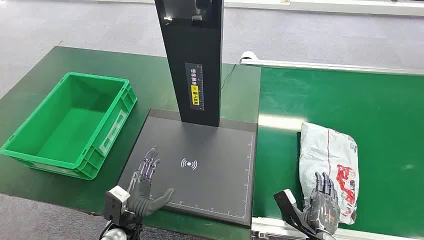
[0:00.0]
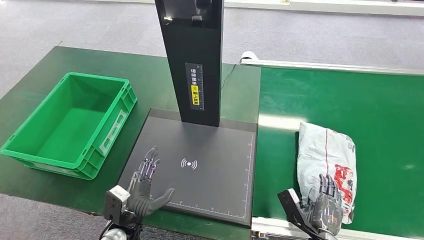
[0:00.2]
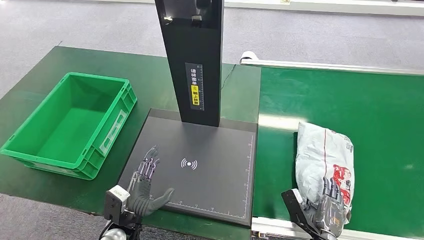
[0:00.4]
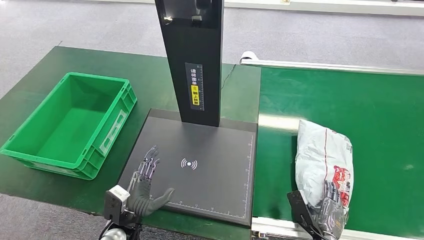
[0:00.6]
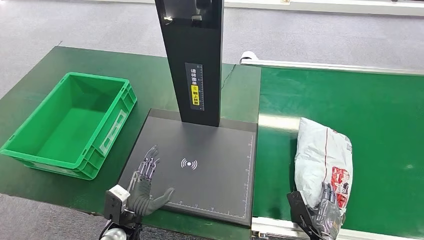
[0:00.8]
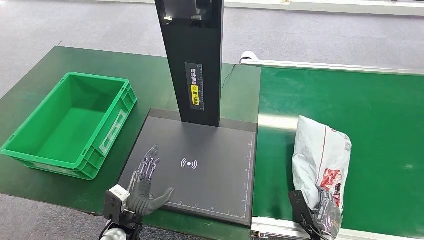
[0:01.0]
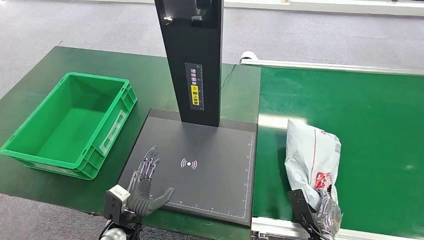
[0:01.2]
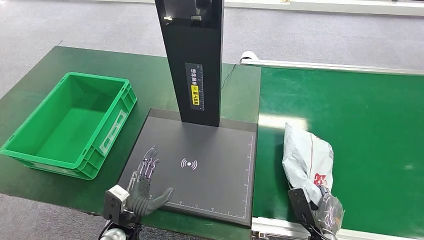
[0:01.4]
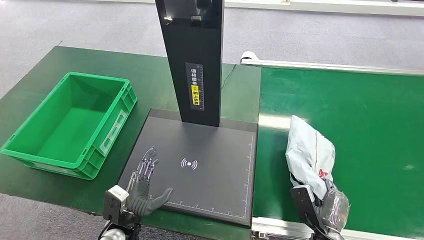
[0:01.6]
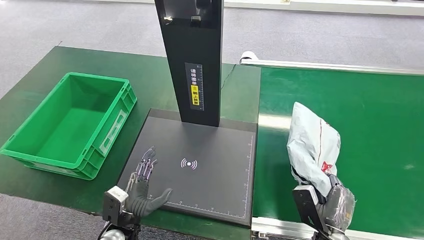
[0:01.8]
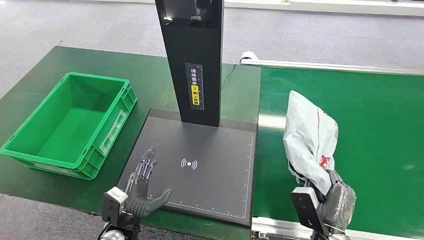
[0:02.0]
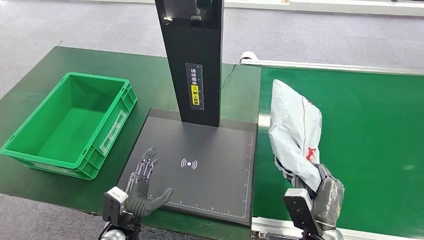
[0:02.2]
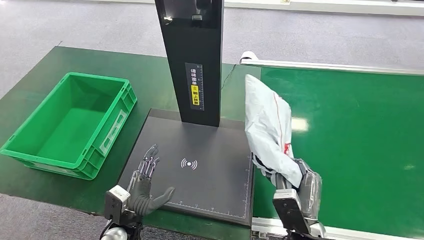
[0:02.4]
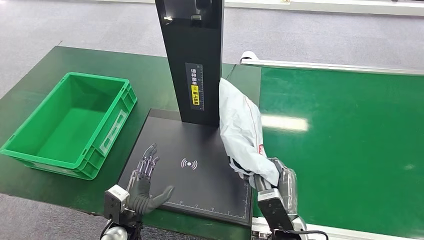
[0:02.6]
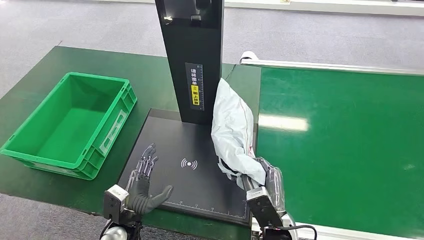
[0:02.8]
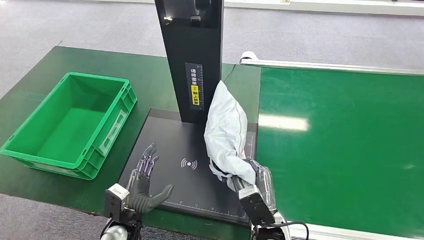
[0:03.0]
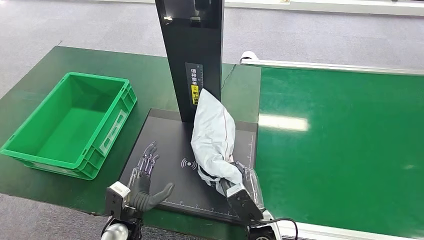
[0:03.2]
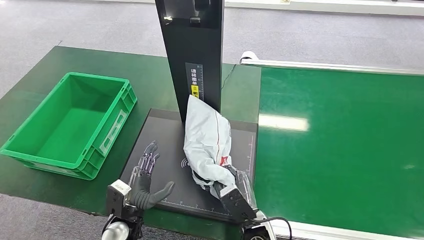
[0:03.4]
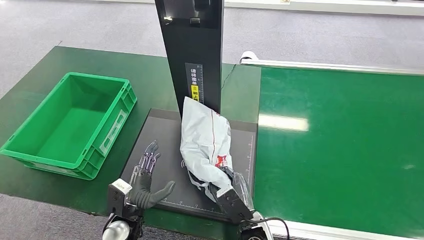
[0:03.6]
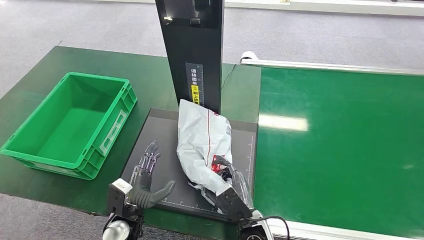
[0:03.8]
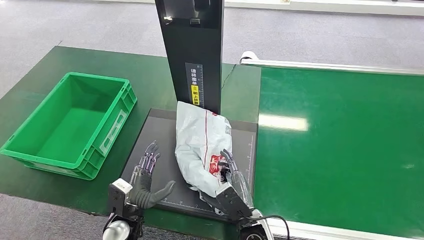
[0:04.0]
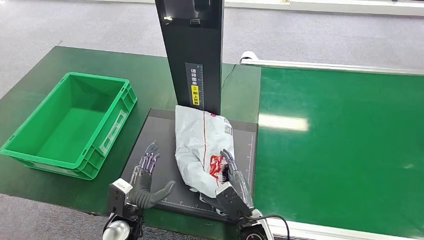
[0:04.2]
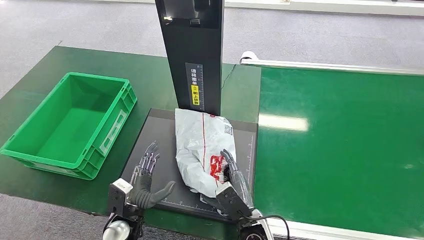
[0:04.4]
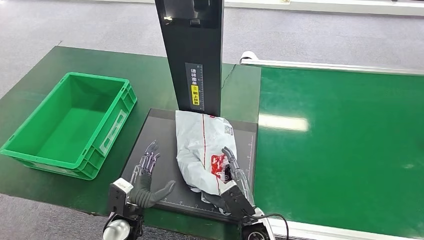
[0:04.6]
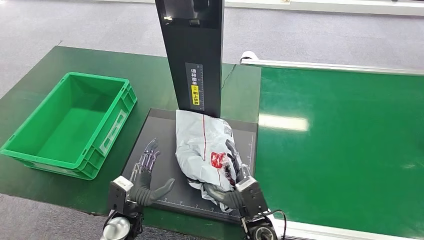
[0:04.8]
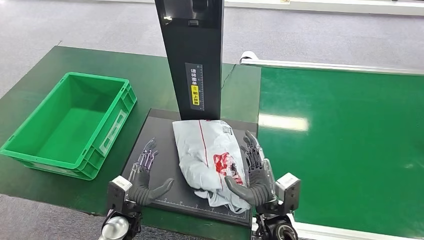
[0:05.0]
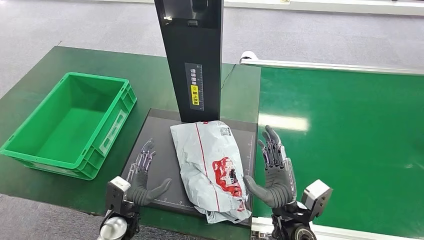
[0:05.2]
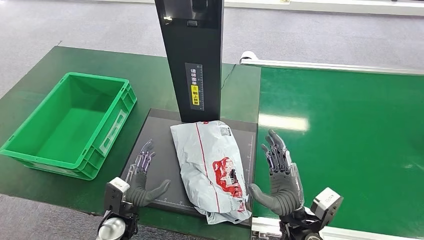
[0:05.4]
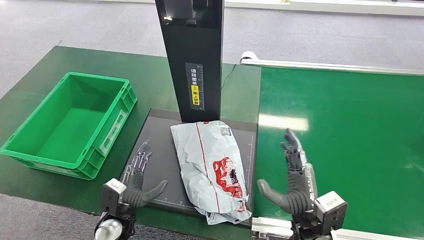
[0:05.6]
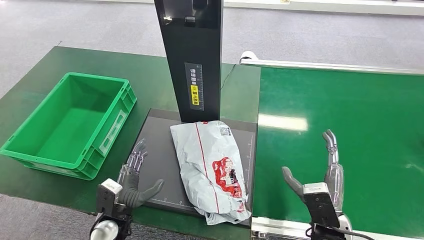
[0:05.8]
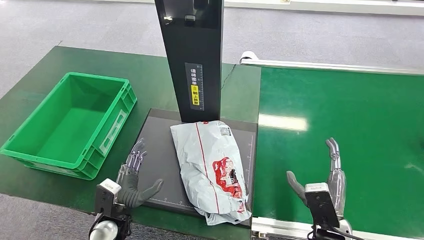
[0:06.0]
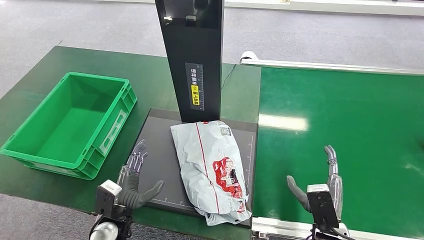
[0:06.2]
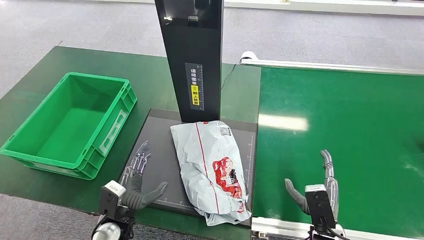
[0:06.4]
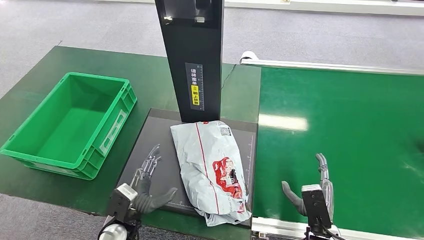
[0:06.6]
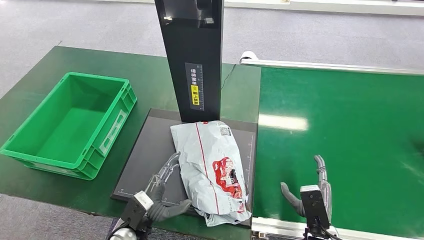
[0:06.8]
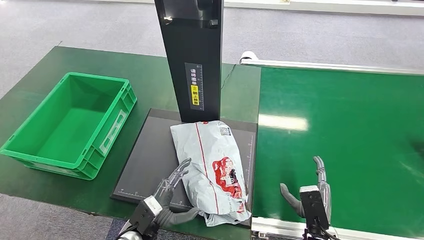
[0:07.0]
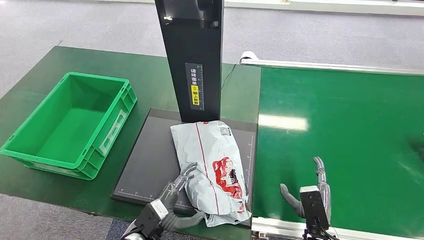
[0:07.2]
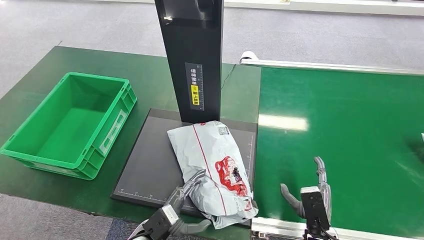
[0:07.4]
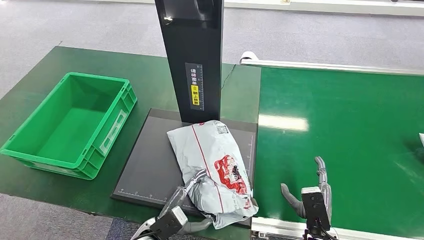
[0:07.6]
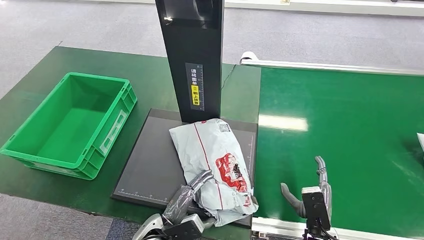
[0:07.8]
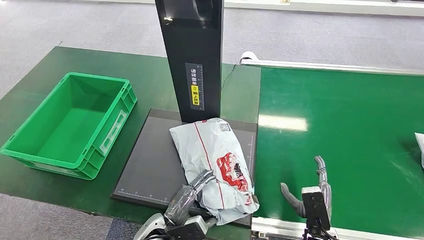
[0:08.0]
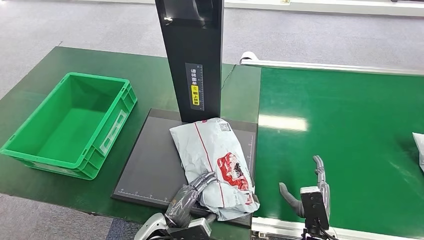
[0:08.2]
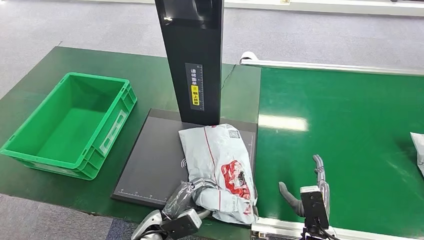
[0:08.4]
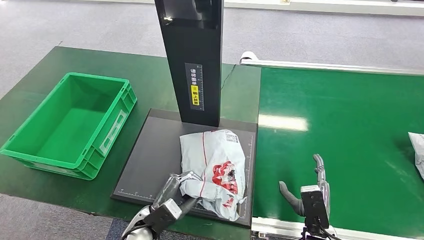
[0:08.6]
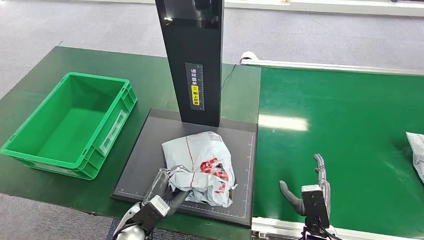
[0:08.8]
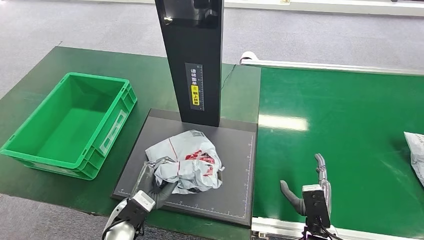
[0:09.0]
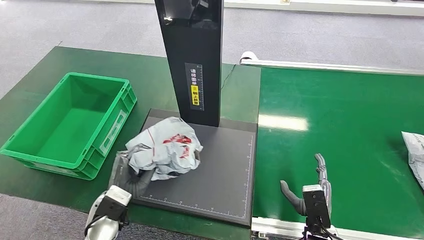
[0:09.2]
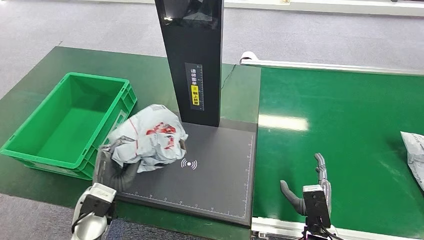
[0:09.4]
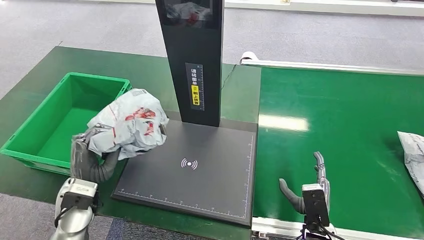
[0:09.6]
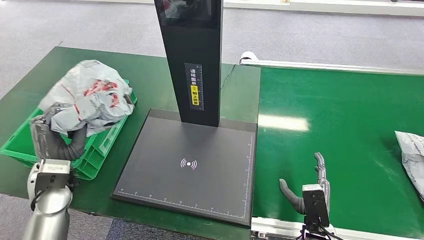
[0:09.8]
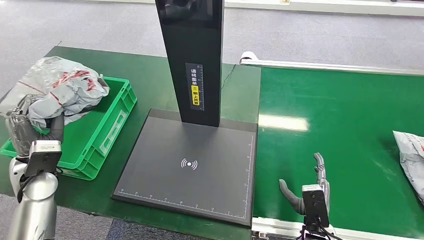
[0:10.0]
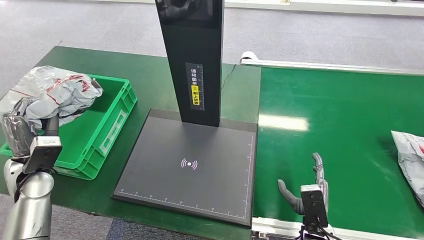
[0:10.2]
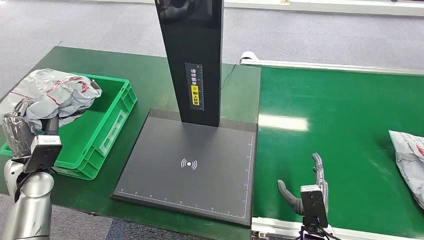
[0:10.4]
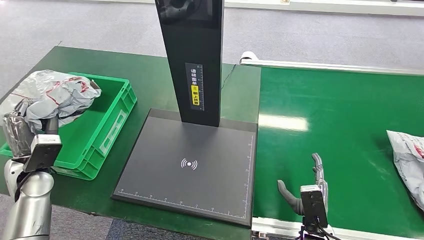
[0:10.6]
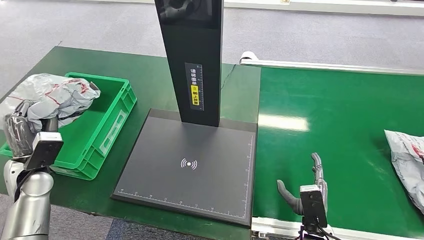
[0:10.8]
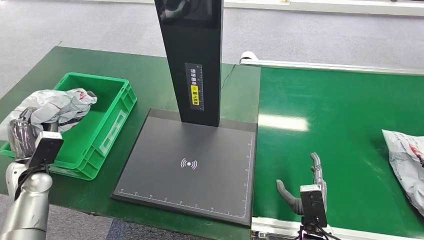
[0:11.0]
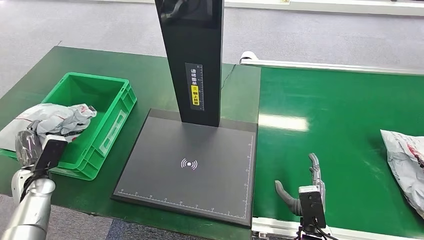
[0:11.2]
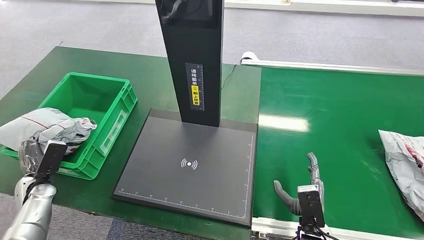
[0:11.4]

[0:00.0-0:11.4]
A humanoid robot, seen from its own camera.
Step, 0:00.0 to 0:02.0: Pick up the package from the conveyor belt.
Step, 0:02.2 to 0:05.8: Place the package onto the inbound machine.
Step, 0:06.0 to 0:09.2: Pick up the package from the inbound machine.
0:01.4 to 0:02.8: The right hand heads to the left and upward, covering approximately 15 cm.
0:02.8 to 0:04.2: The right hand ends up some 5 cm from where it was.
0:04.2 to 0:05.6: The right hand travels to the right and upward by approximately 15 cm.
0:05.6 to 0:07.2: The right hand travels downward by about 10 cm; the left hand is displaced to the right by about 5 cm.
0:08.6 to 0:10.0: The left hand travels to the left and upward by about 30 cm.
0:10.0 to 0:11.4: The left hand shifts some 15 cm downward and to the left.

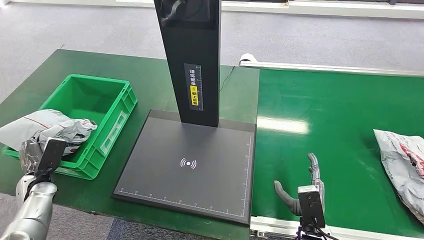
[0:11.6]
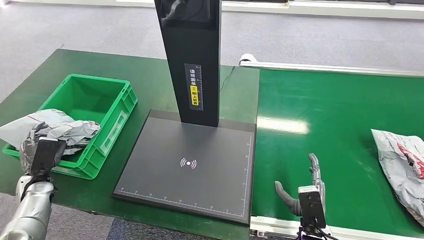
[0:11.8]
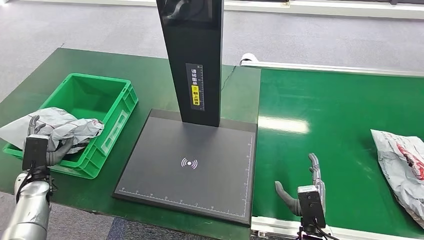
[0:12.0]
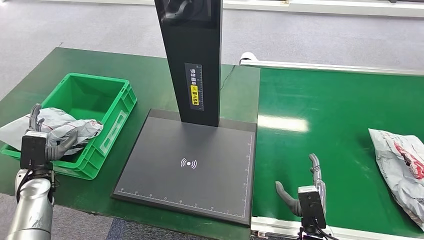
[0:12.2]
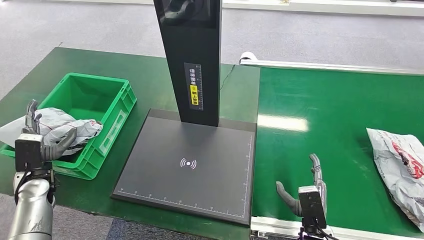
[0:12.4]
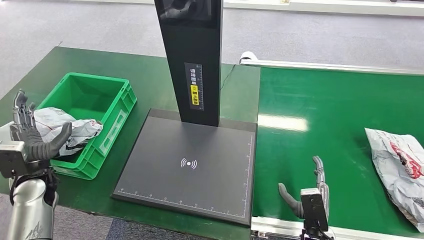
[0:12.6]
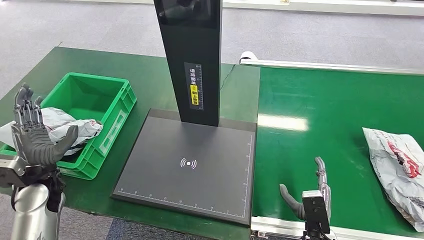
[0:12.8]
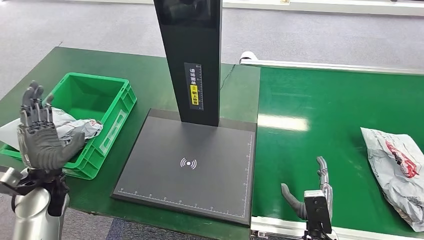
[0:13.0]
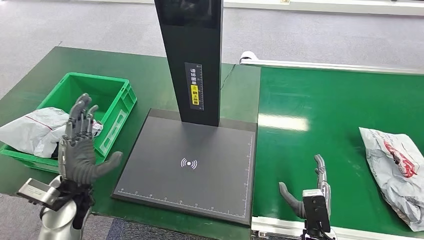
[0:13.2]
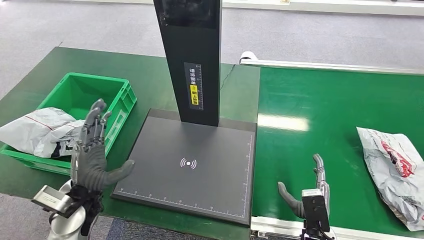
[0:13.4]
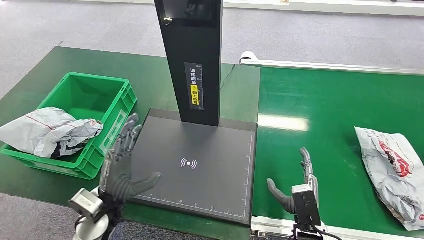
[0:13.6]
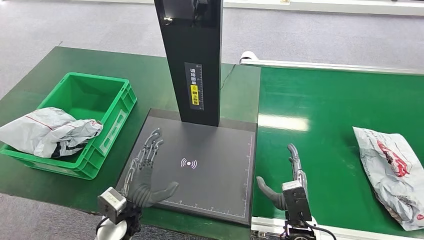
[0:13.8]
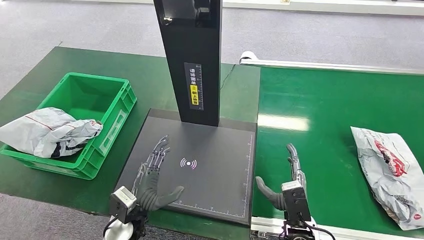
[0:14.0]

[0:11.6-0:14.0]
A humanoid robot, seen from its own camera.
Step, 0:11.6 to 0:14.0: Place the package into the parcel locker.
0:11.6 to 0:12.8: The left hand heads upward and to the right, covering about 15 cm.
0:12.8 to 0:14.0: The right hand changes place by approximately 5 cm. The left hand is displaced to the right and downward by about 20 cm.

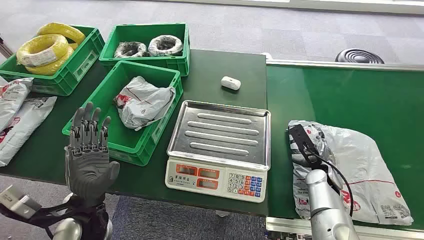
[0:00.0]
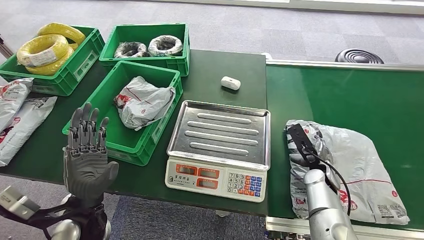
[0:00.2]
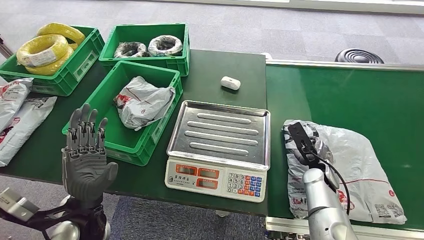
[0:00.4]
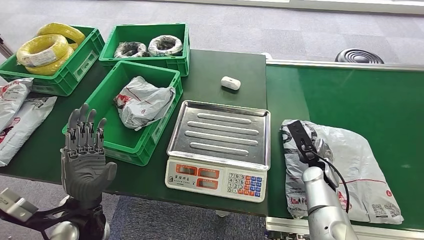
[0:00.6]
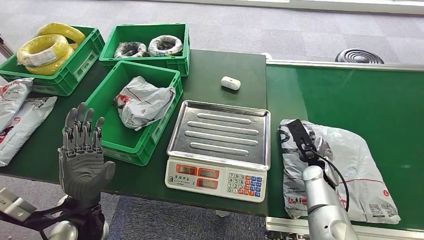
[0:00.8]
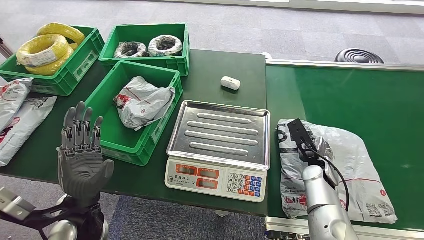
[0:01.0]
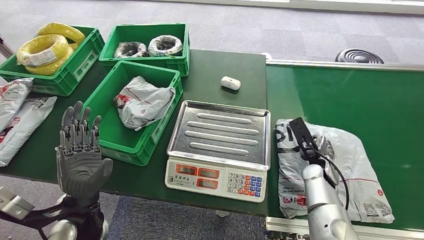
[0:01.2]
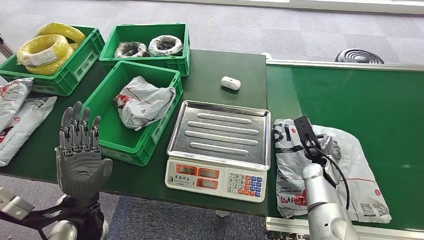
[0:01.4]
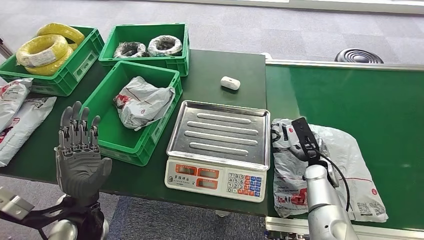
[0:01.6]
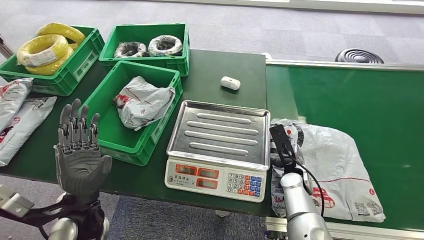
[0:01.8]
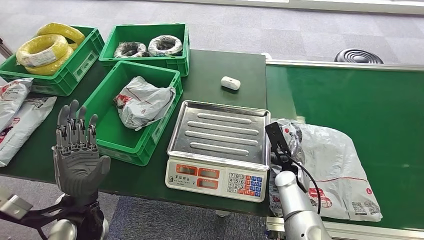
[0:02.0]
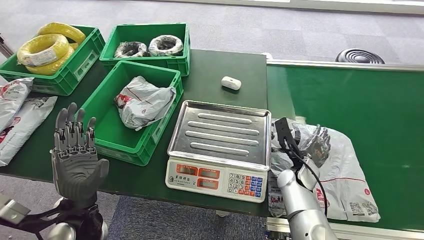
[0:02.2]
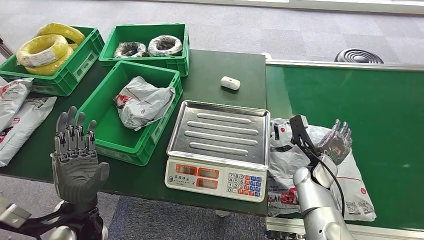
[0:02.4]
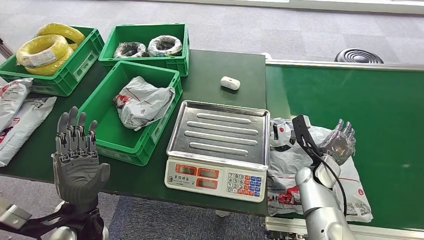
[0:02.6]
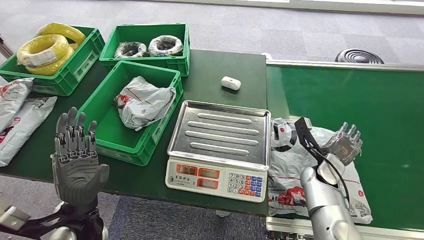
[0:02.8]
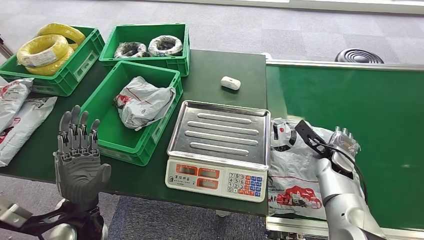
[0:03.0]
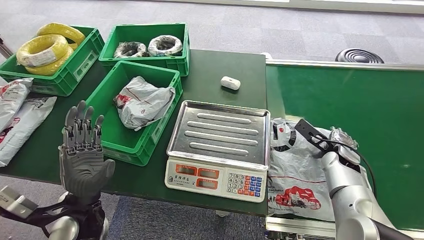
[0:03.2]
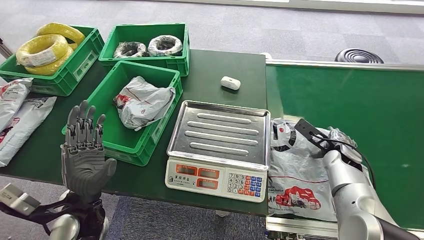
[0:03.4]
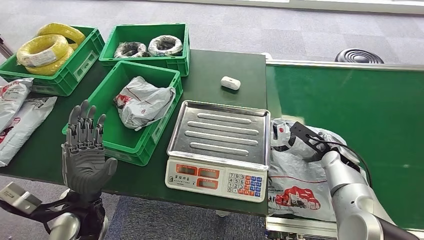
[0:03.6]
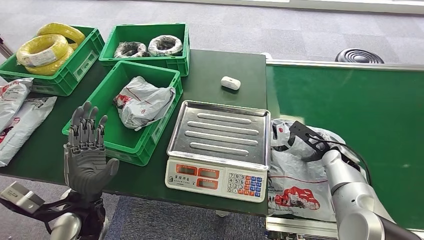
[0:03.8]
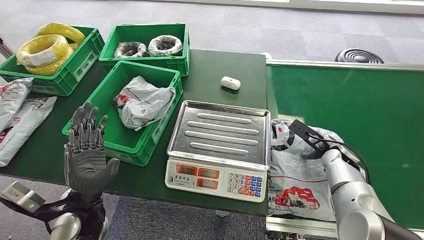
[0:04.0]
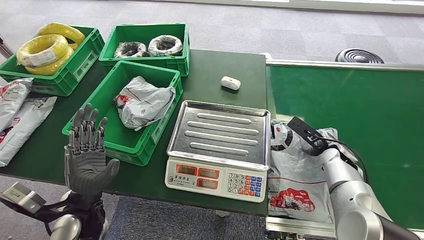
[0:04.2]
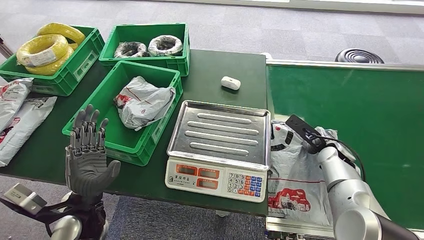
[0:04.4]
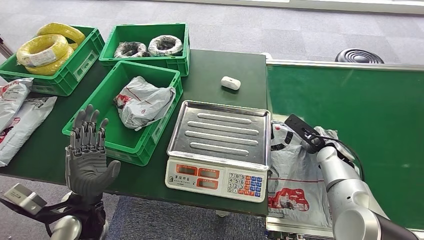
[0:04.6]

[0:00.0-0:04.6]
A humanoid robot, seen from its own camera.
0:01.6 to 0:03.0: The right hand shifts some 5 cm to the right.
